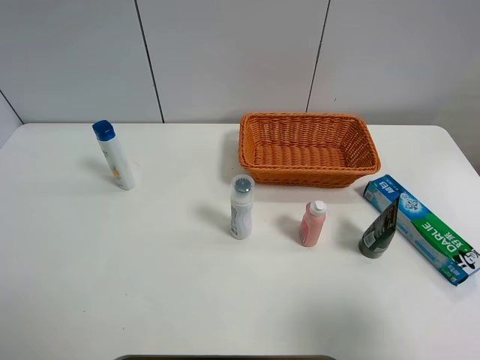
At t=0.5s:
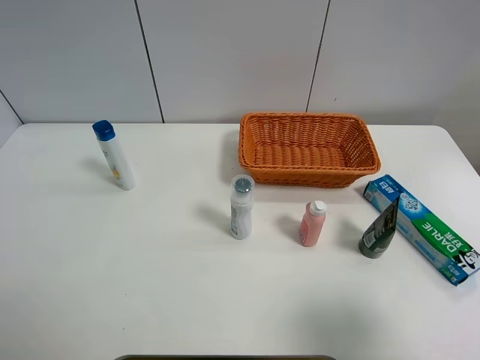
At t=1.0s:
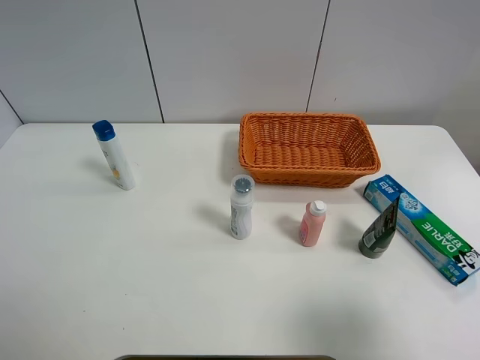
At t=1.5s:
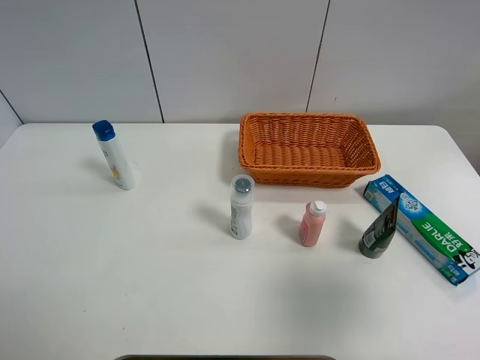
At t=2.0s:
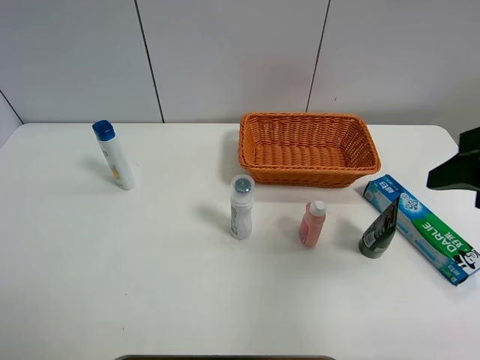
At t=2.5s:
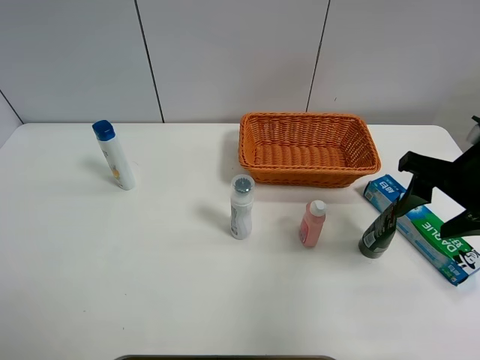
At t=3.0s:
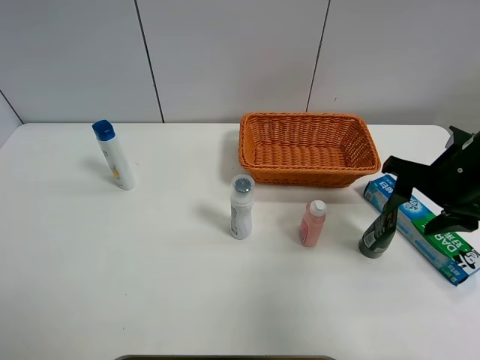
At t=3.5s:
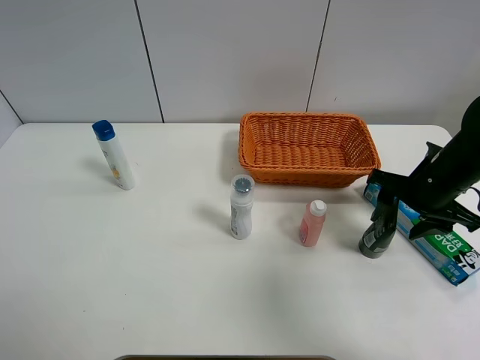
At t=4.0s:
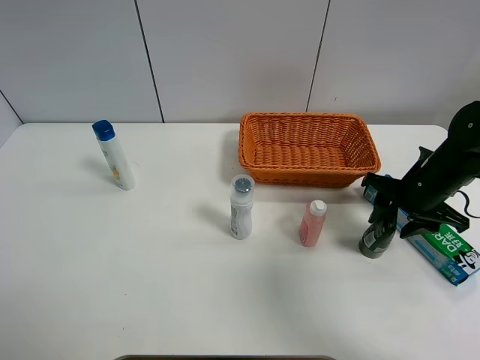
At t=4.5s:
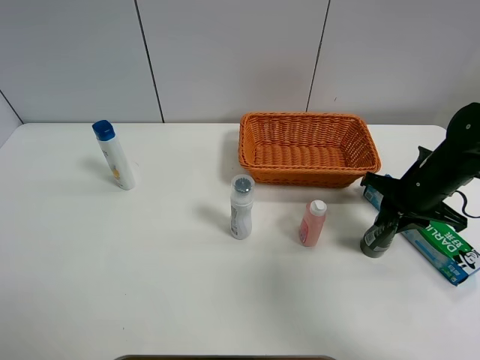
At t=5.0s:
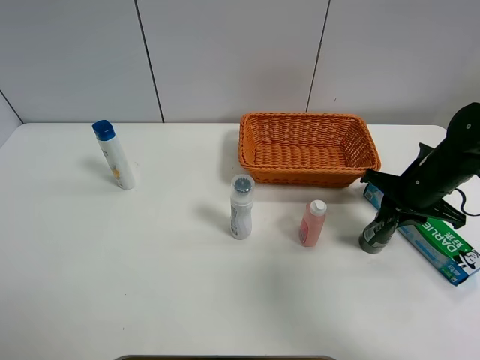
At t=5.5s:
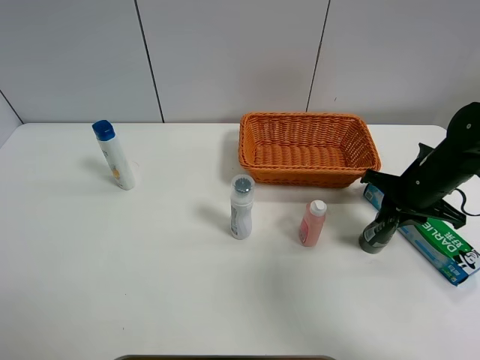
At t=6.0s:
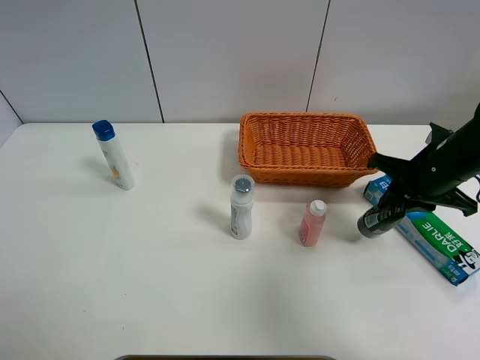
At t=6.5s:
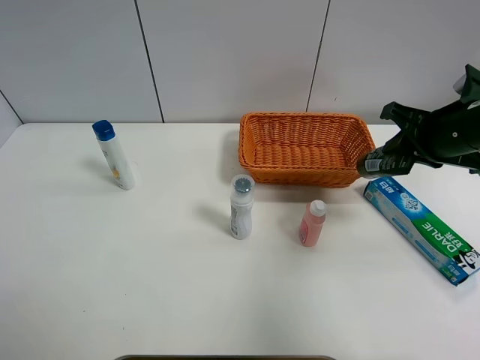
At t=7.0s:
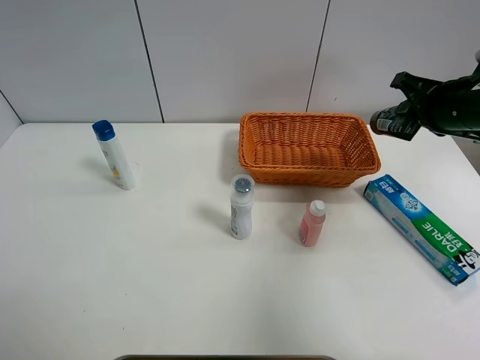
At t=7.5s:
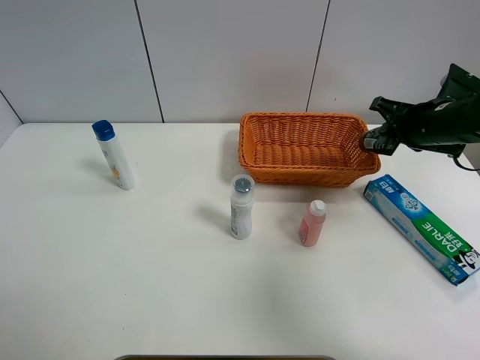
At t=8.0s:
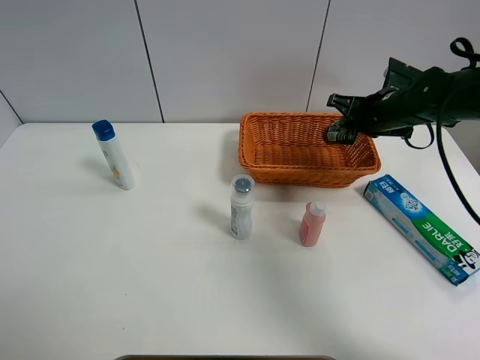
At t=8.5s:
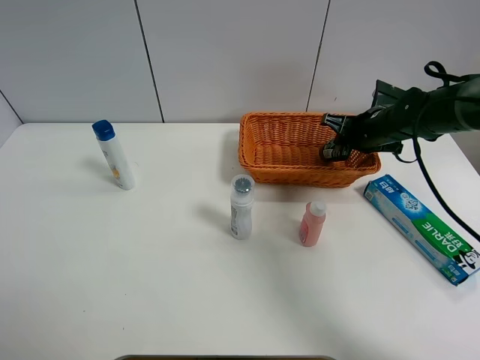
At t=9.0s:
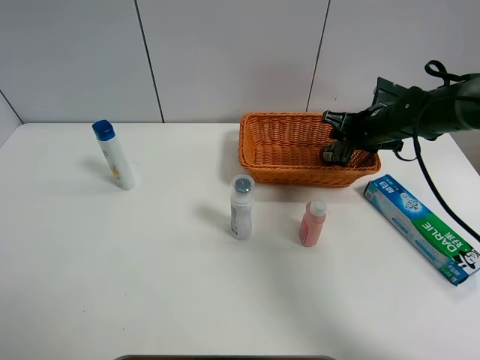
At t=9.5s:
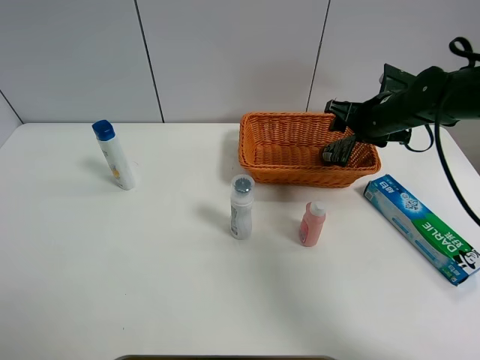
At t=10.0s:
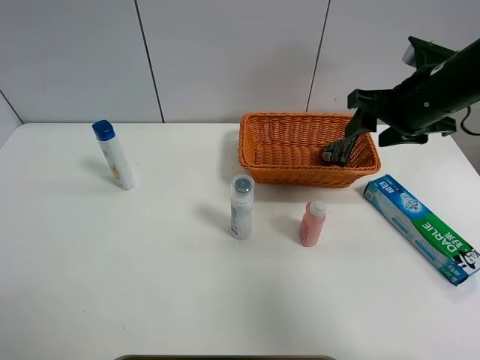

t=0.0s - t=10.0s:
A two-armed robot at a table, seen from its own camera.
Task of the whole recording: Place the object closest to the toothpaste in the basket.
Step, t=0.0s - t=4.5s: Grasp the soft facial cleanser with right gripper.
Step, t=5.0s - t=9.5s: Place the soft facial cleanser in the basket with right gripper.
t=0.0s - t=2.0s: The right gripper is displaced forward by about 15 cm.
t=2.0s - t=4.0s: The right gripper heads downward and forward, covering roughly 20 cm.
t=4.0s - t=6.0s: The right gripper closes its fingers.
t=6.0s - t=8.0s: The right gripper heads forward, covering approximately 10 cm.
t=8.0s - t=10.0s: The right gripper goes approximately 15 cm upward and backward, and opens its fingers.

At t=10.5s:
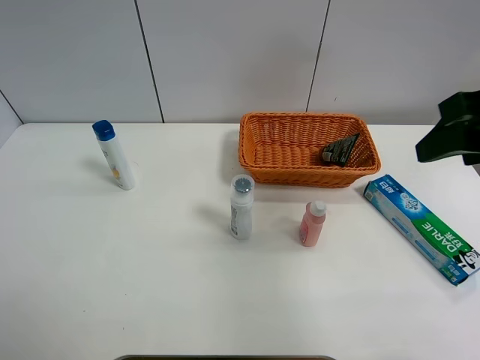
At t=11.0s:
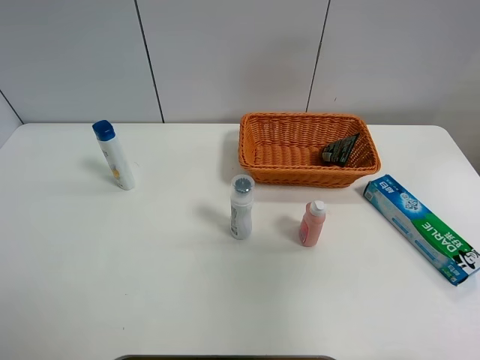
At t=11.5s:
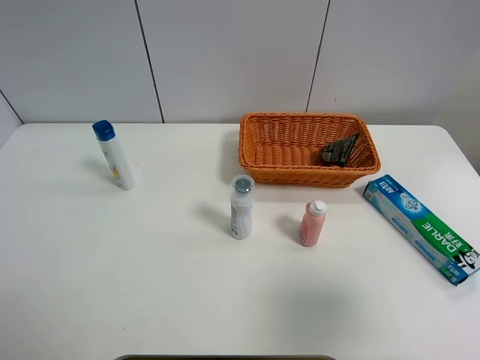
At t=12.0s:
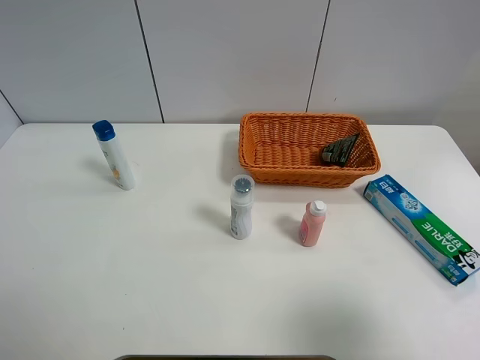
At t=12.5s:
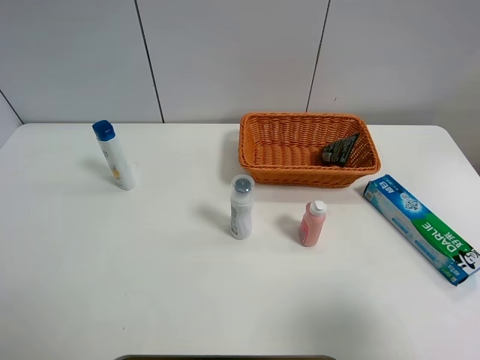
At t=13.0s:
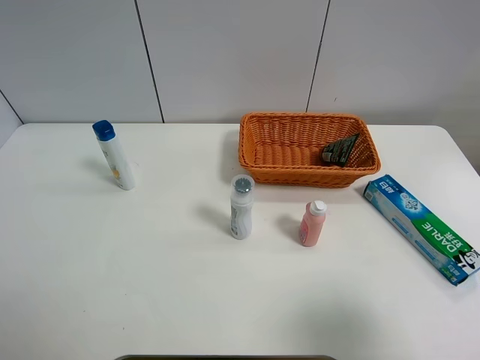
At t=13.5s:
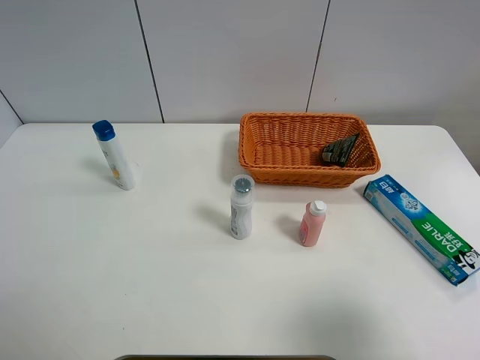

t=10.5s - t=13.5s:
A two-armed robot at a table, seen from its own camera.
Task of the whole recording: Place the object closest to the toothpaste in the basket.
t=10.5s - t=12.0s: The right gripper moves backward and downward, roughly 20 cm.
t=12.0s - t=13.5s: Both grippers stay about where they are.
